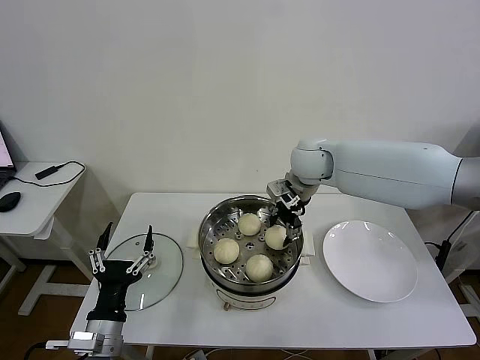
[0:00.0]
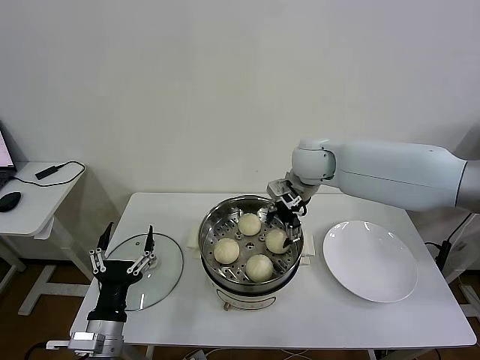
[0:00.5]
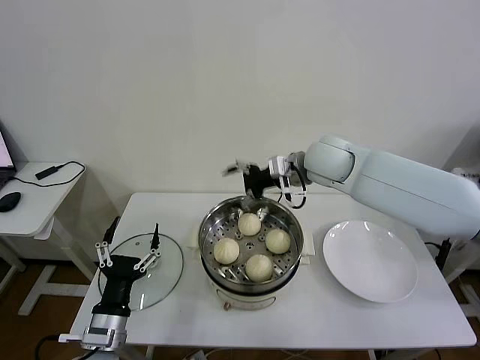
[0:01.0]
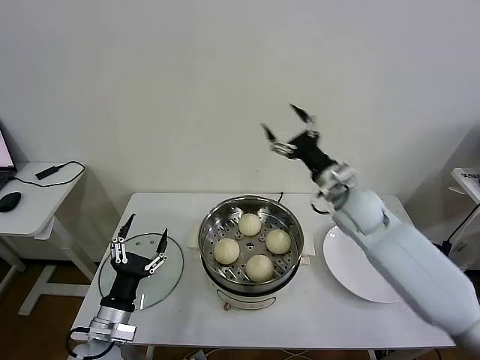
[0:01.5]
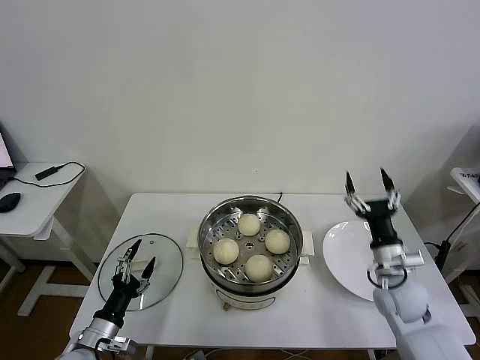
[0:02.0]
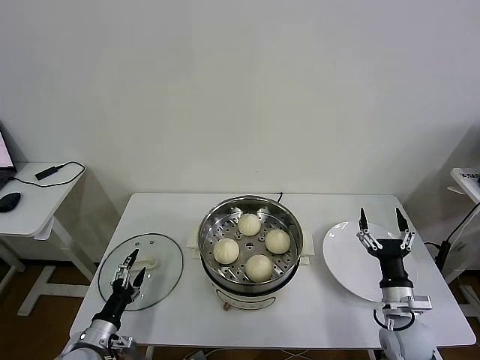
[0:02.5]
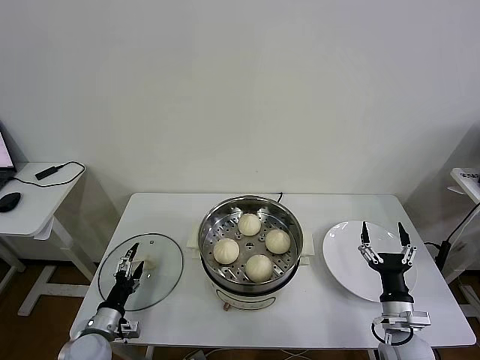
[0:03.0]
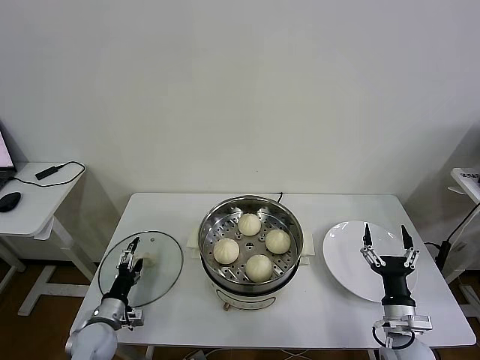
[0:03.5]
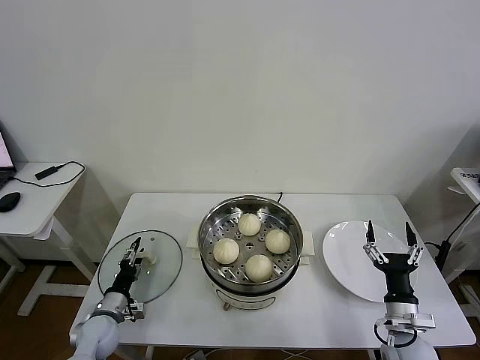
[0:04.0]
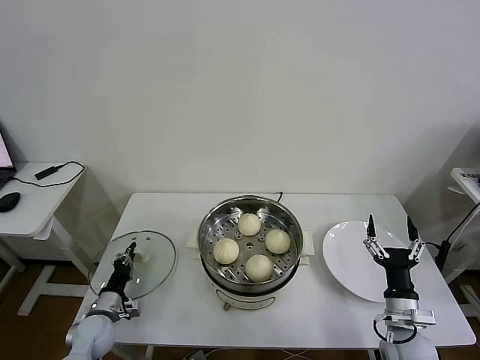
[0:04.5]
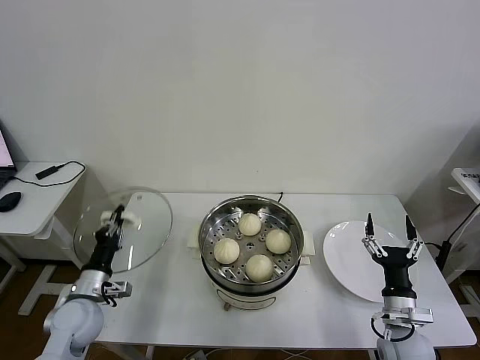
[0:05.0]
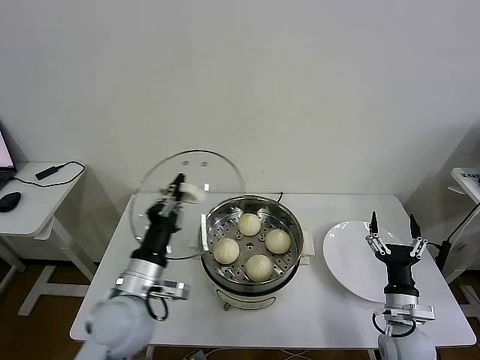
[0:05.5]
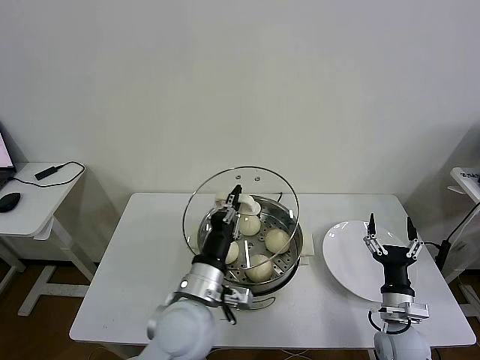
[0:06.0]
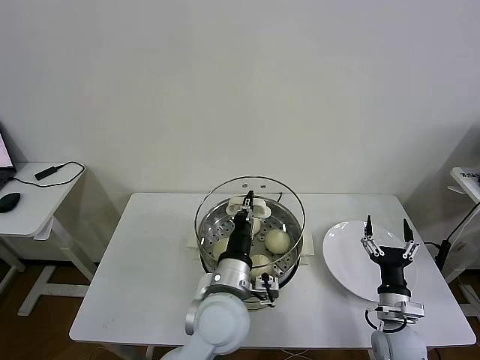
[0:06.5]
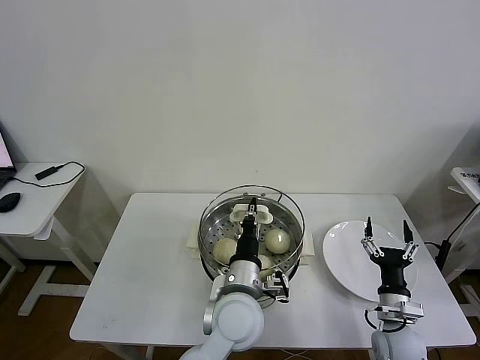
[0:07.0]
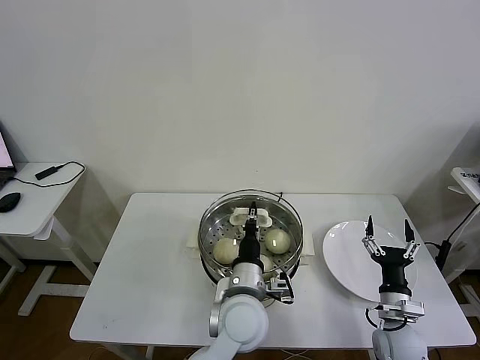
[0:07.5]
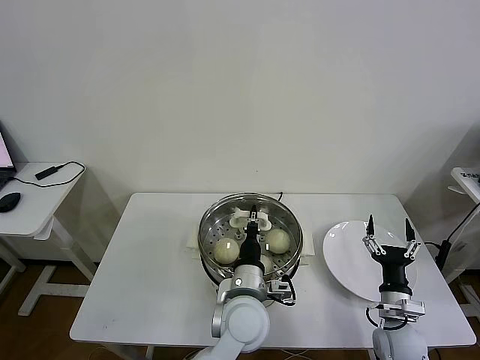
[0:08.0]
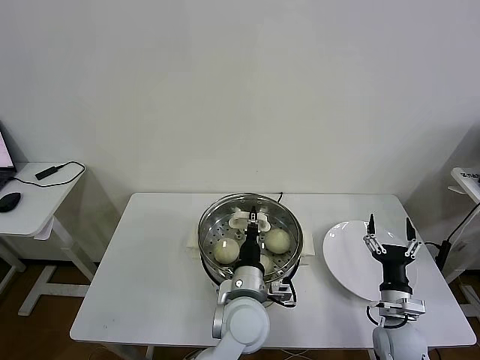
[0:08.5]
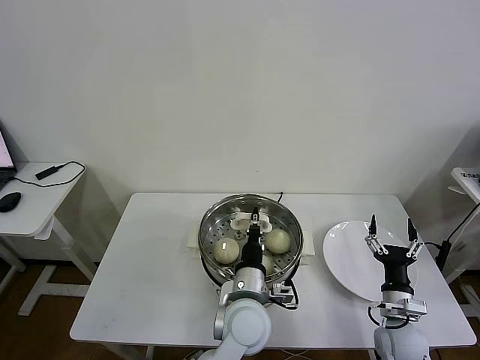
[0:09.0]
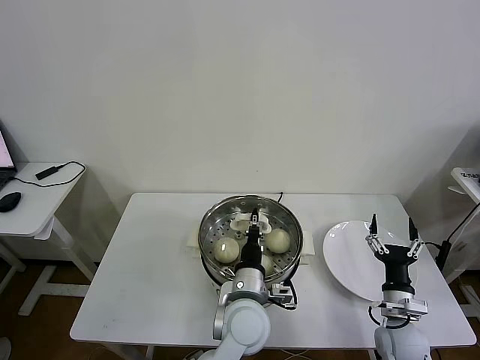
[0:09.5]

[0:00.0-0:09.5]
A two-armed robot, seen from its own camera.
Task of the whole recording: take steamed baozi put them in steamer then cover it.
Step, 0:00.5 to 0:04.5: Grasp the pot lid with left gripper.
0:00.0 to 0:02.0: The right gripper moves backward, downward and to the right, some 35 cm, and opens up. The left gripper moves downward and to the left, some 10 cm.
0:02.0 to 0:04.0: The left gripper moves forward and downward, approximately 10 cm. Meanwhile the right gripper goes approximately 15 cm backward and downward.
0:04.0 to 0:05.5: The left gripper shifts about 25 cm upward and to the right, and closes up.
0:05.5 to 0:07.5: The left gripper heads to the right, covering about 20 cm.
0:07.5 to 0:09.5: The grippers stay close to where they were, moving slightly.

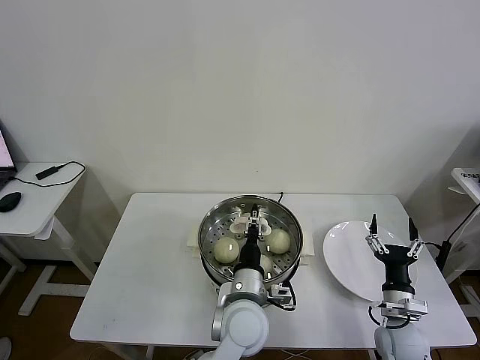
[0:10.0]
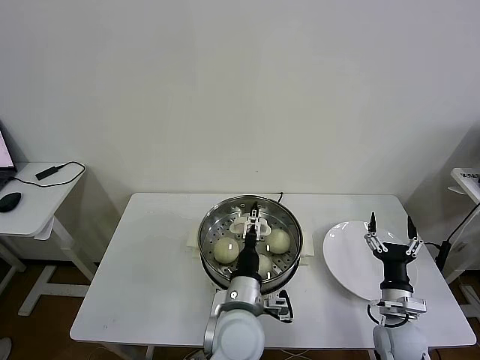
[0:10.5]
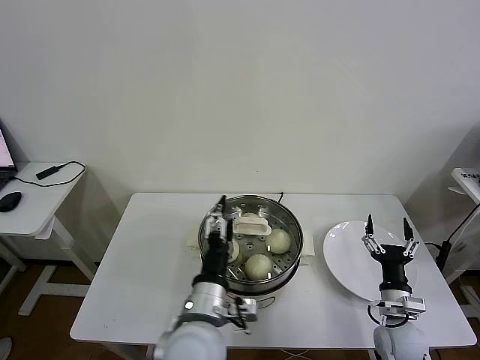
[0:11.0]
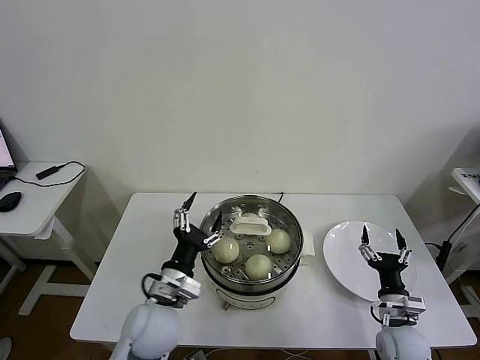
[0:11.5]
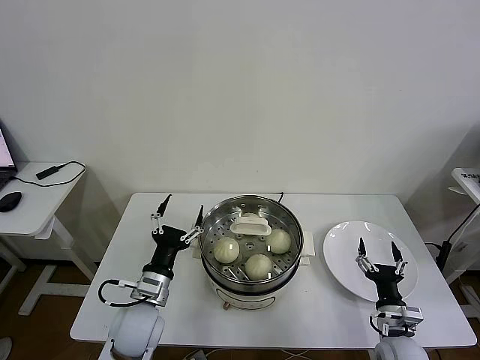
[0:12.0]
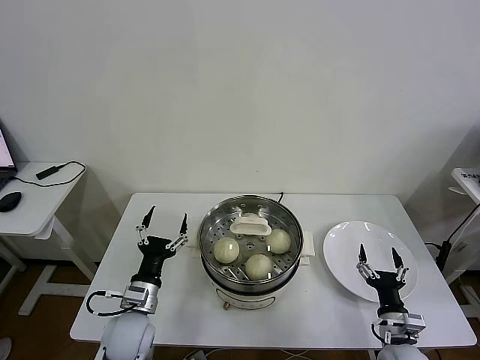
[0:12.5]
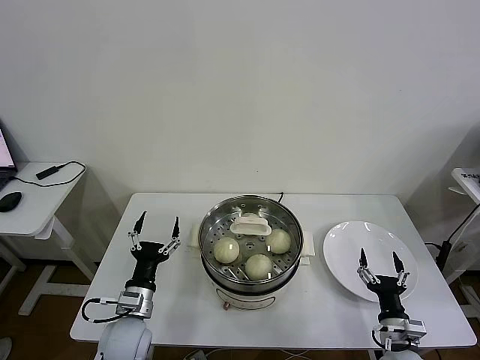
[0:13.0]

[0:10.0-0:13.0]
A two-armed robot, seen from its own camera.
Task of the whole recording: take steamed baozi put them in steamer then cover it.
0:10.0 to 0:11.5: The left gripper heads to the left, covering some 15 cm, and opens up.
0:11.5 to 0:13.0: The left gripper goes roughly 15 cm downward and to the left. The right gripper moves about 5 cm.
